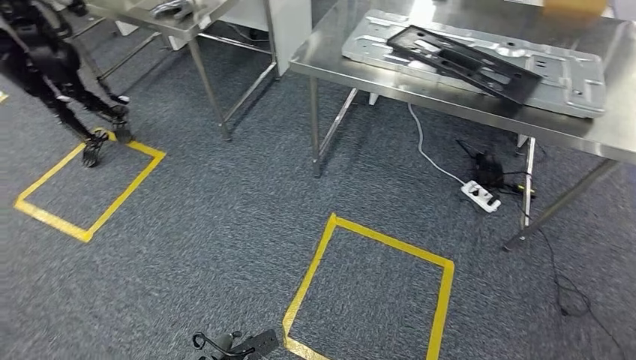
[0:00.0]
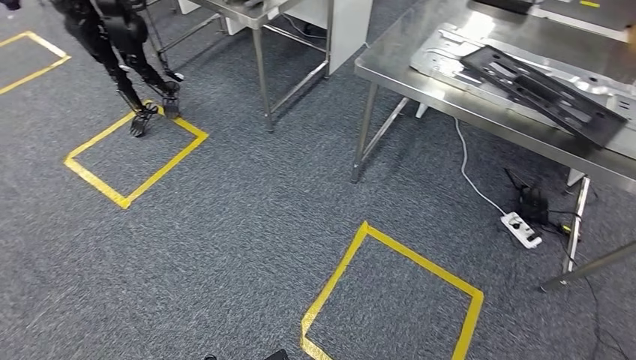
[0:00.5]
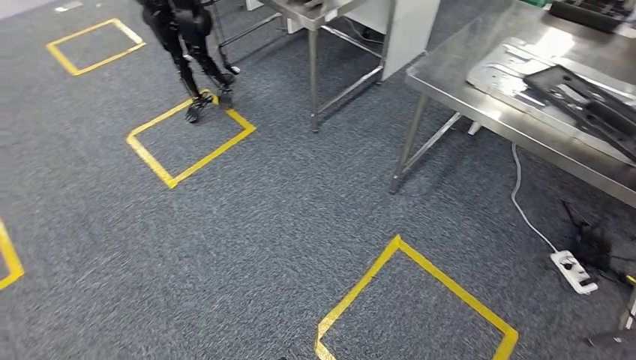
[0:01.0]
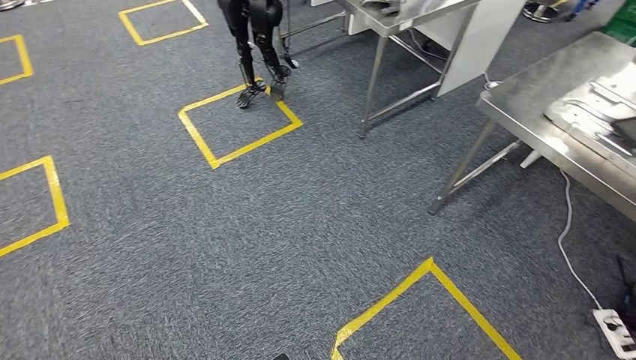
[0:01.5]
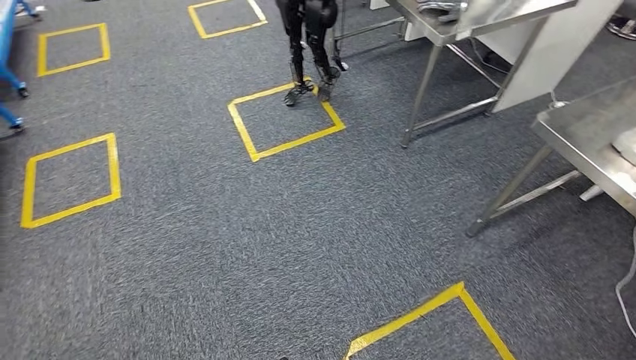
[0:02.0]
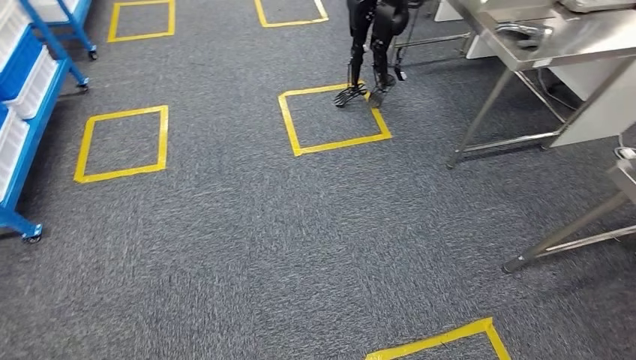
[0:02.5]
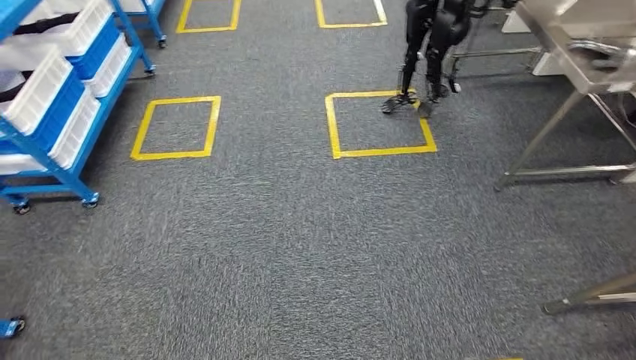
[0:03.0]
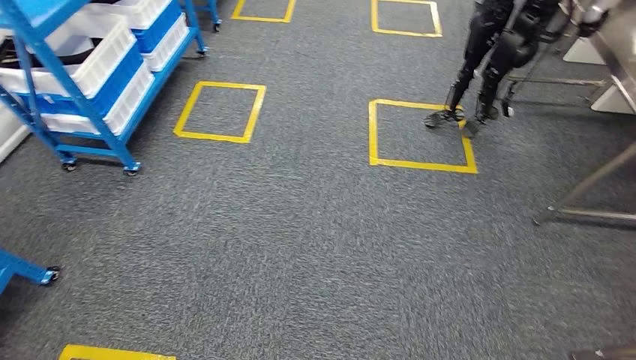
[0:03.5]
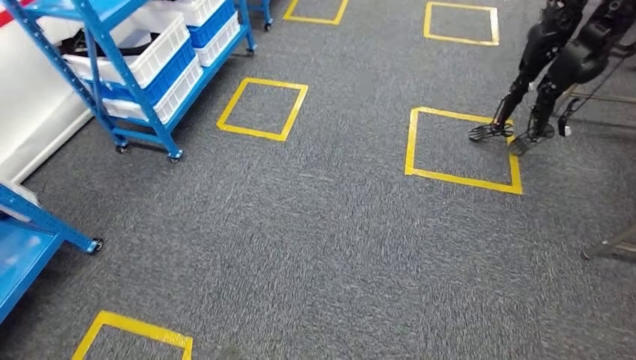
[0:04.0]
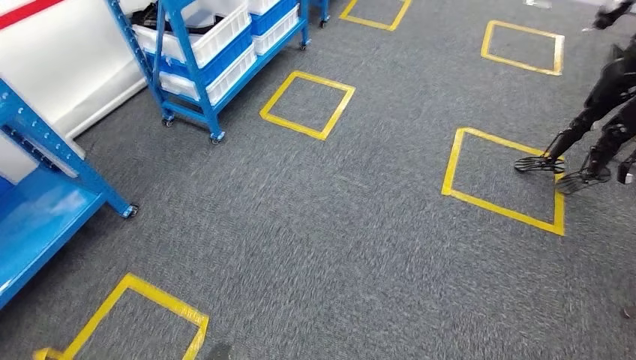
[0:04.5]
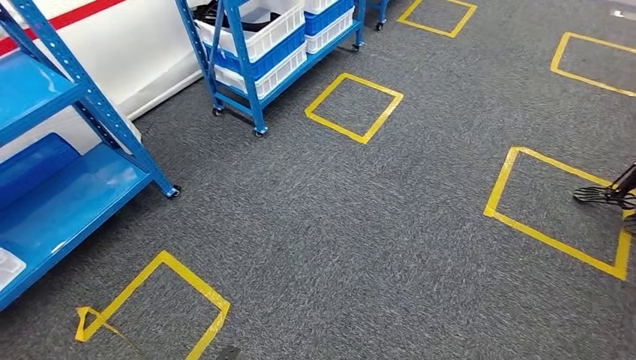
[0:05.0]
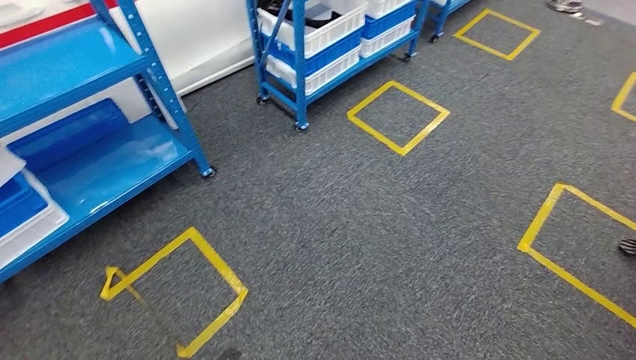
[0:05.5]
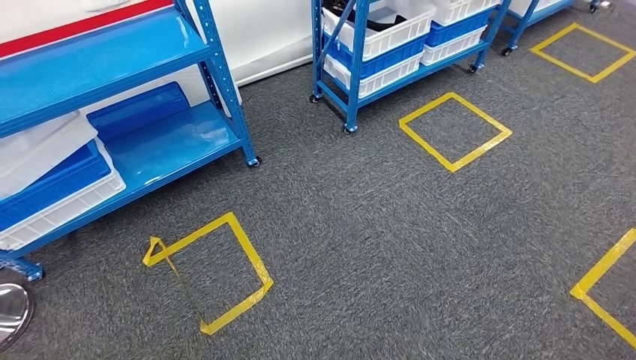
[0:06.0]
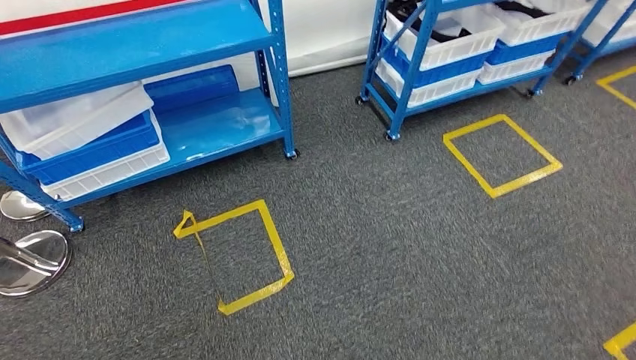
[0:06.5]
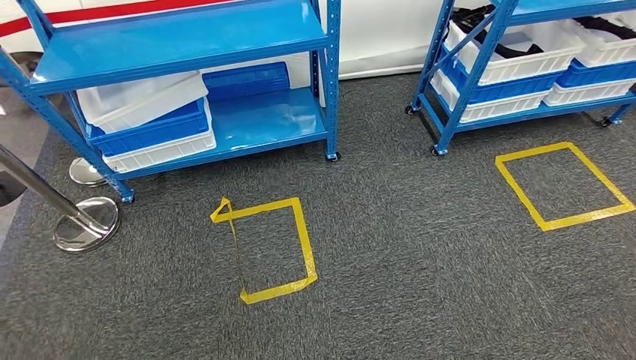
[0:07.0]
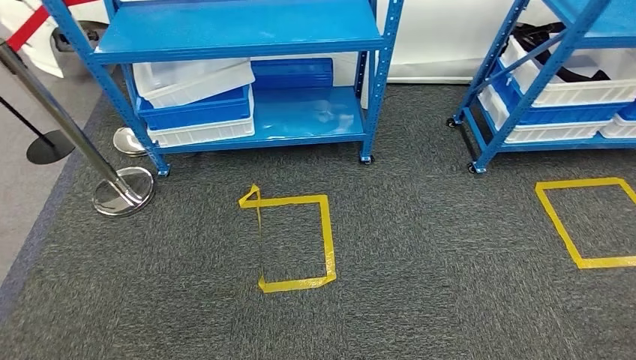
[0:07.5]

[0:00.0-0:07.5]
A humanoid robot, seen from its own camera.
Step, 0:00.0 to 0:07.5: Move to the initial position of the shelf.

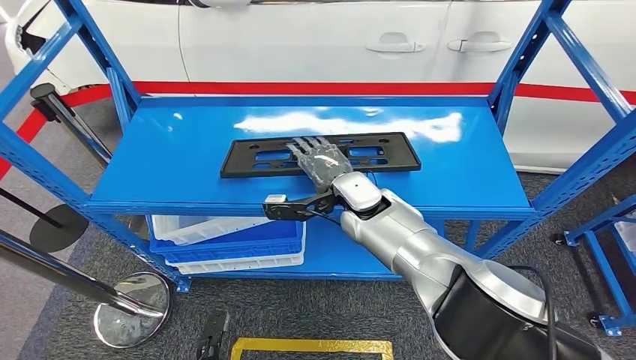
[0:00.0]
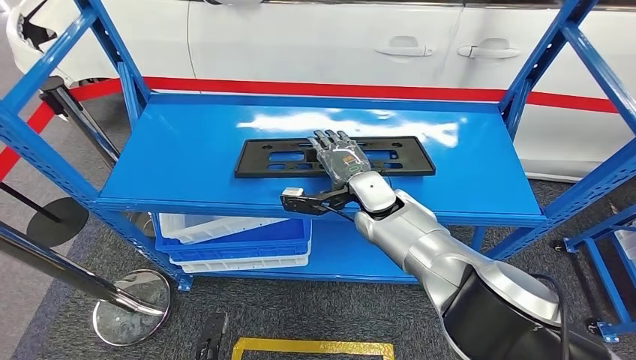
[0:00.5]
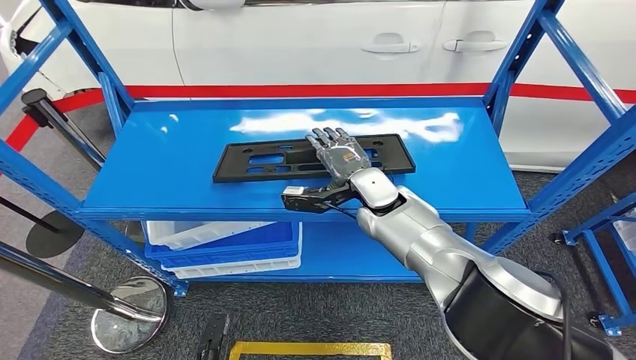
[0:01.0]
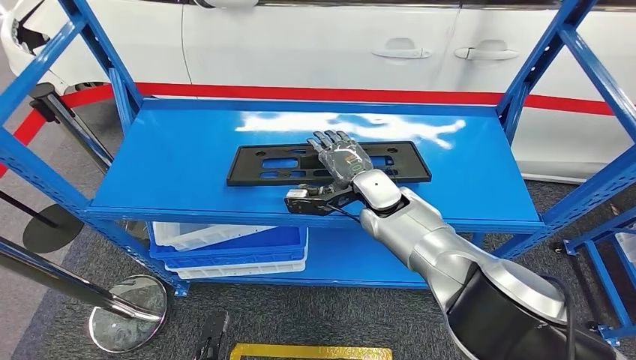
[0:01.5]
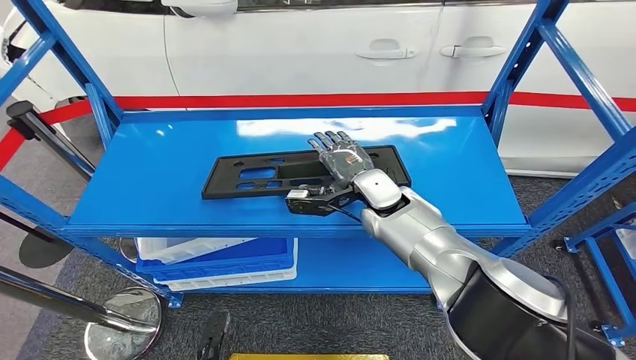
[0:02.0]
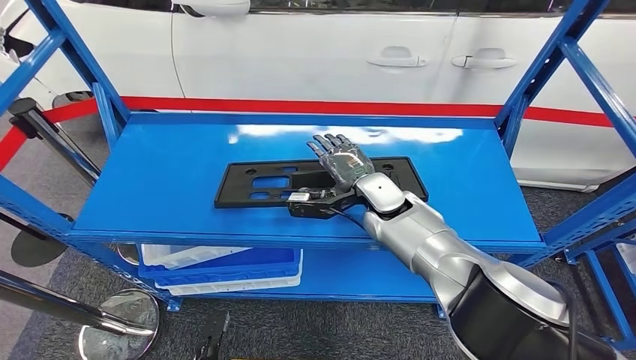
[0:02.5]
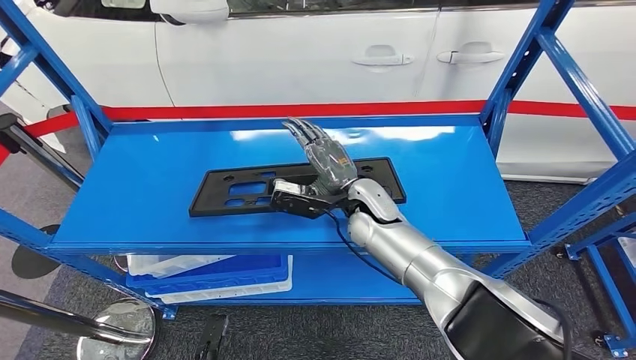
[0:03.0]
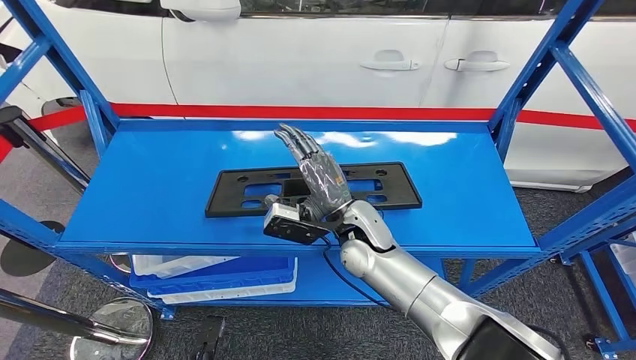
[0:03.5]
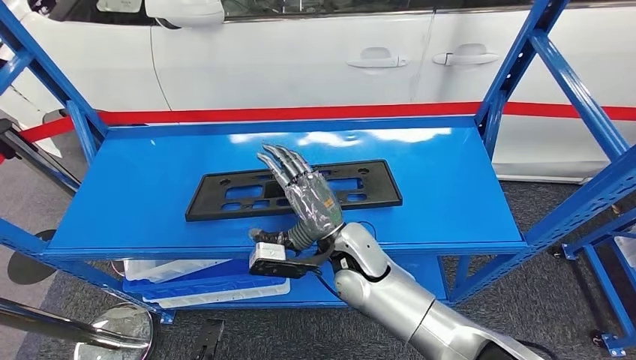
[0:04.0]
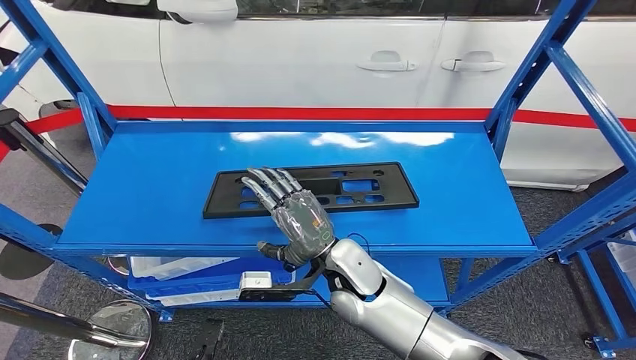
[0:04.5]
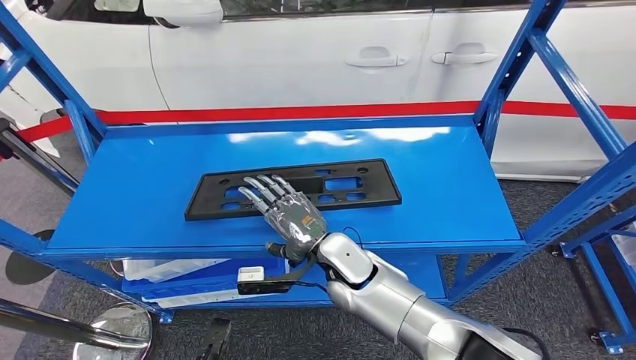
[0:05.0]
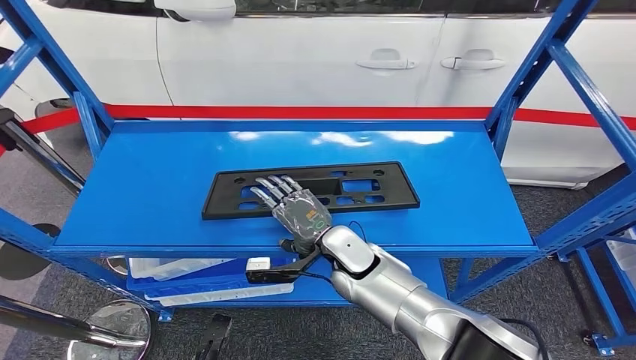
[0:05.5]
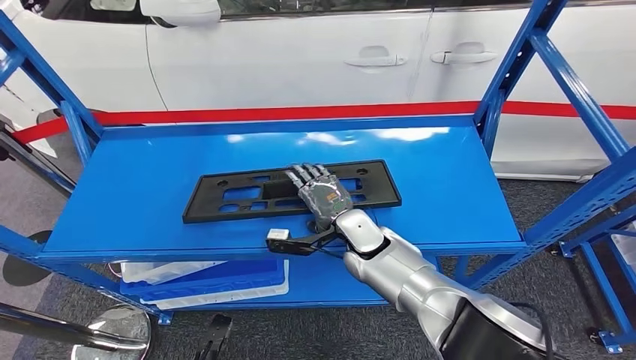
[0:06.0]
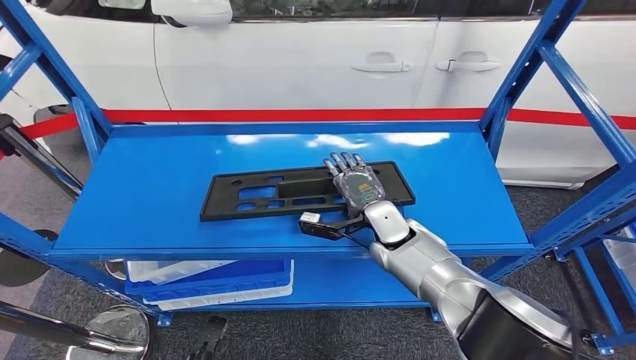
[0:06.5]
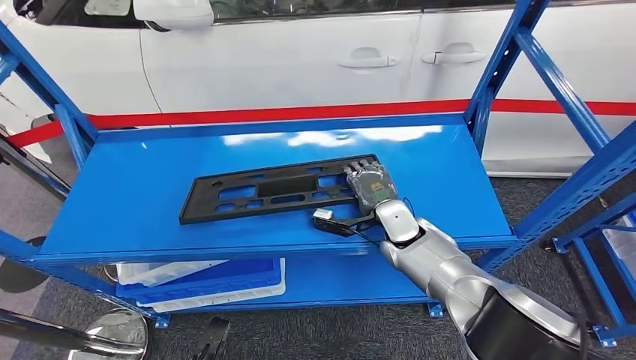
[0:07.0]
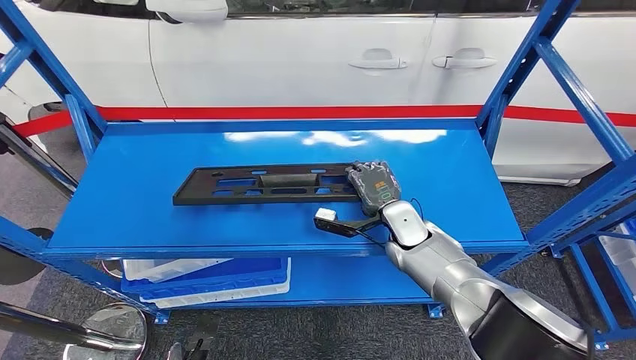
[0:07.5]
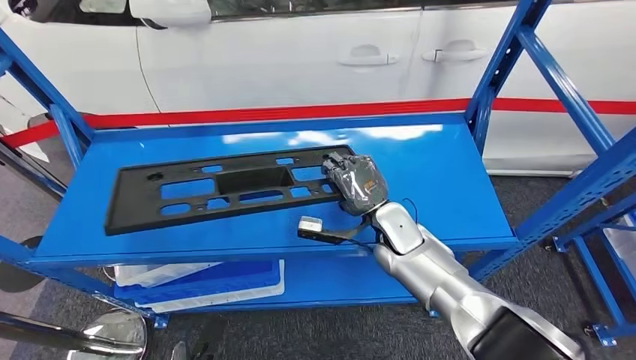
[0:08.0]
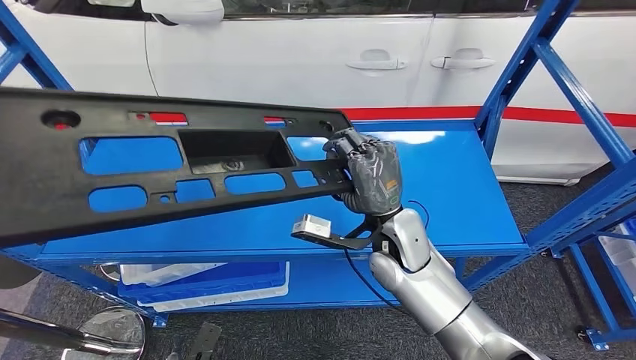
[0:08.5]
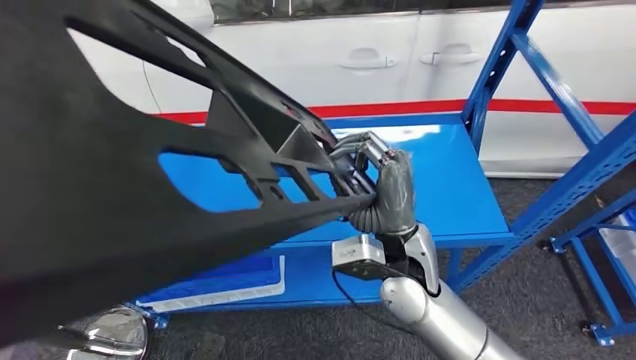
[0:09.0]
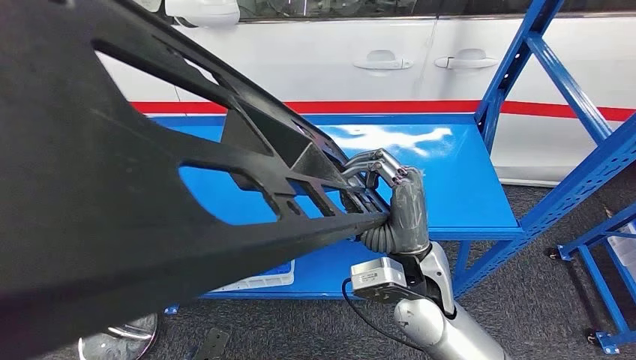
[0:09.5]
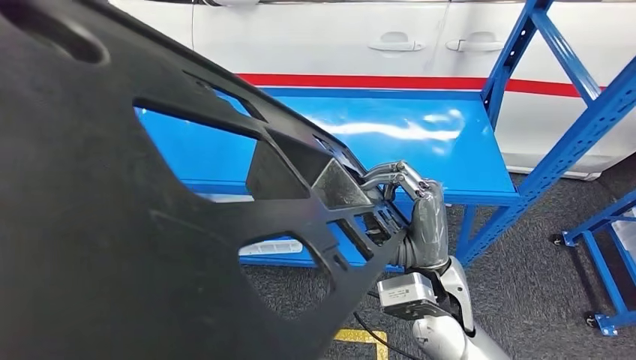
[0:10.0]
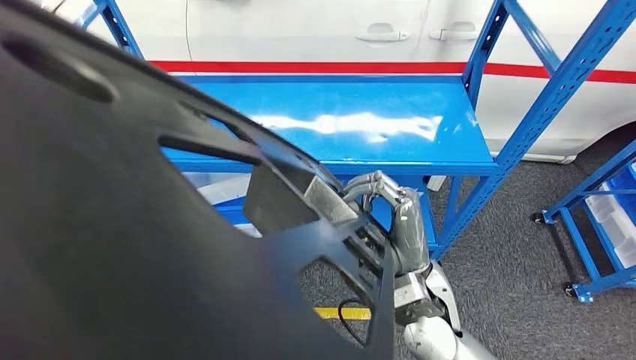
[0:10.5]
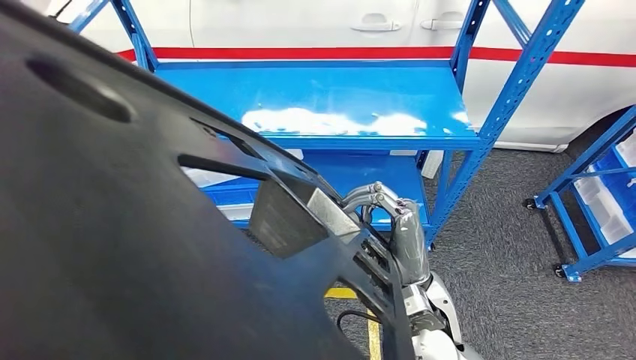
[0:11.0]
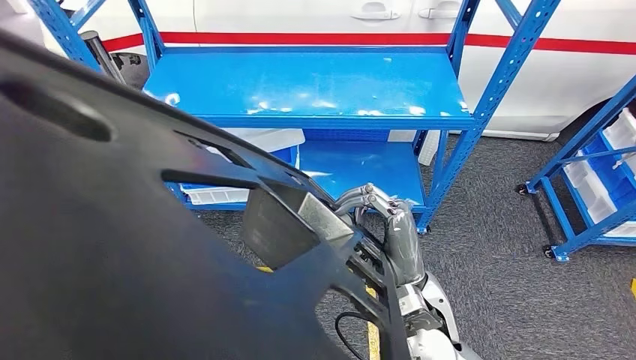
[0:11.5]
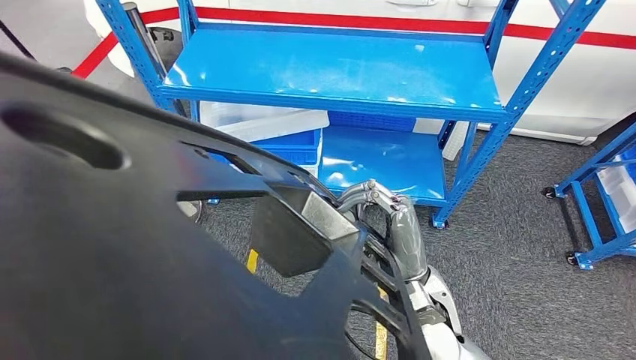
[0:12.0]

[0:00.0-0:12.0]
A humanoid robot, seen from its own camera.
Step, 0:00.0 to 0:08.0: Pick up the large material from the shelf.
0:04.0 to 0:06.0: The right hand changes place by roughly 5 cm.

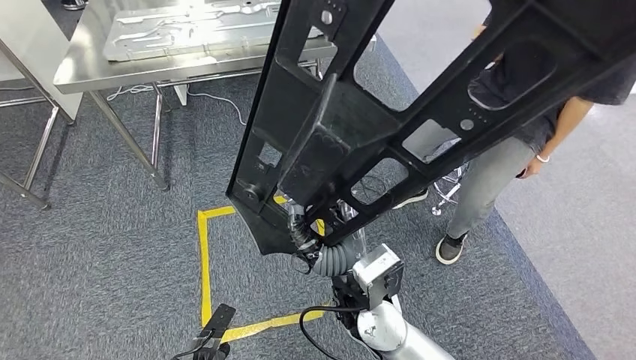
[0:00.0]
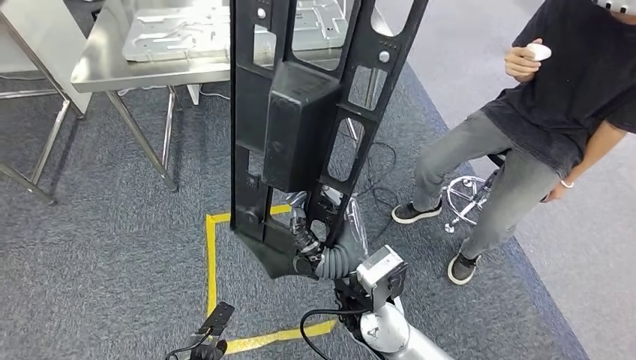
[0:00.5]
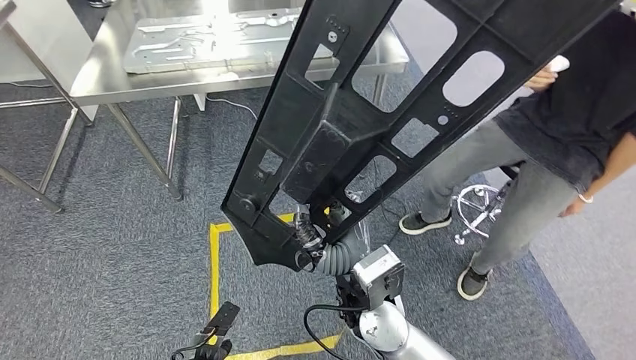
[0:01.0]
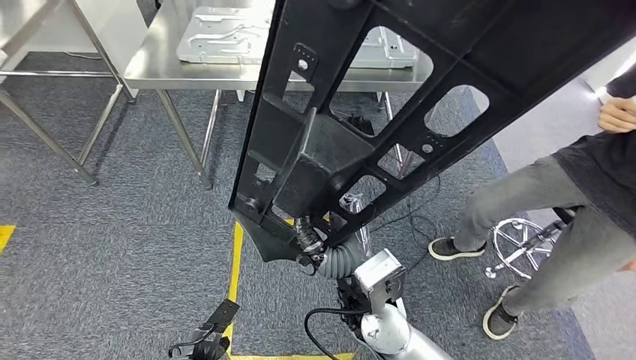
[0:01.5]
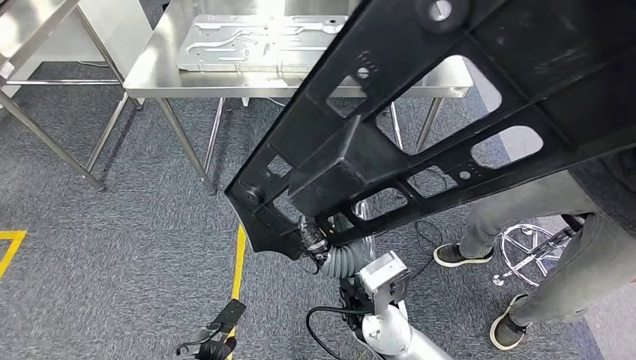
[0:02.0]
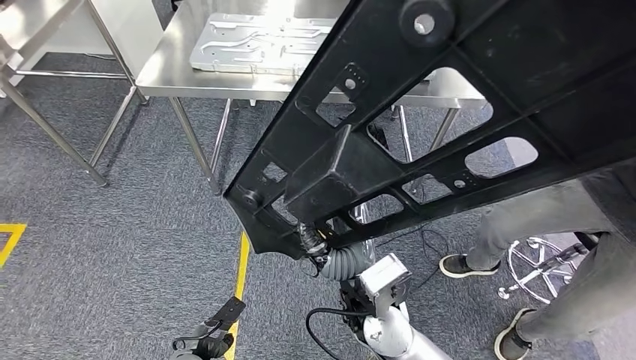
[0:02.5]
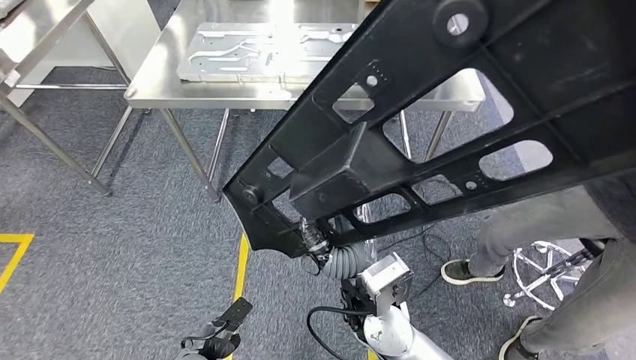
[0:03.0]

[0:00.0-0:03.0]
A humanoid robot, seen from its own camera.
Step, 0:00.0 to 0:02.0: Move the large material to the front of the workbench.
